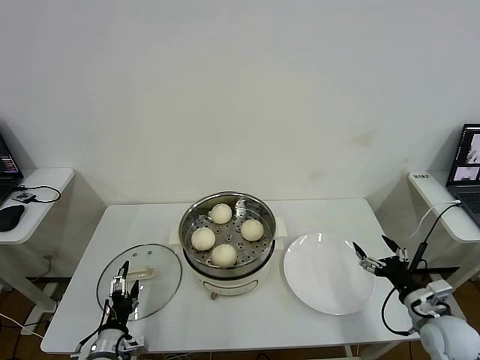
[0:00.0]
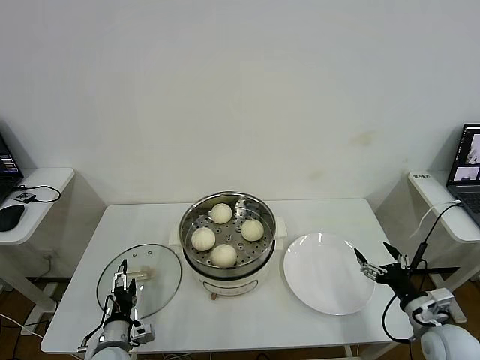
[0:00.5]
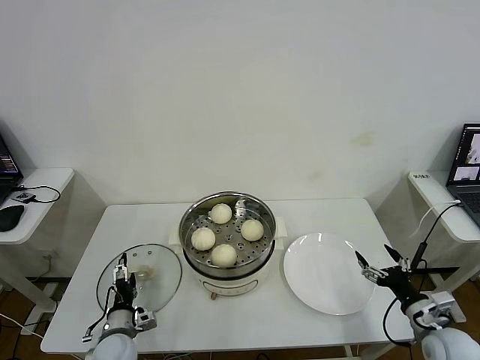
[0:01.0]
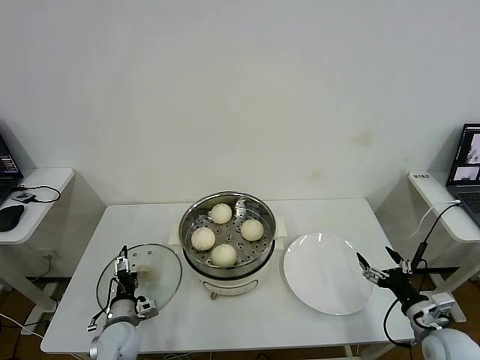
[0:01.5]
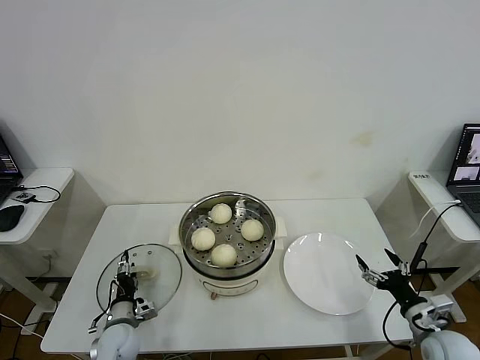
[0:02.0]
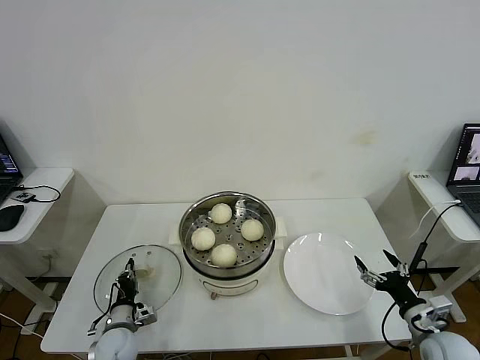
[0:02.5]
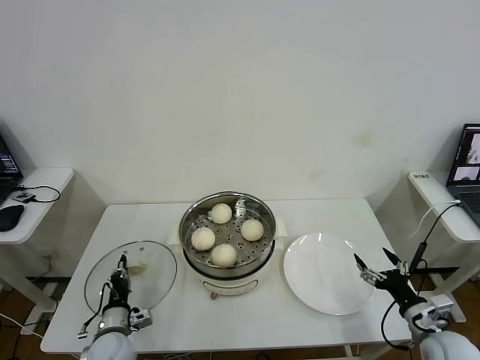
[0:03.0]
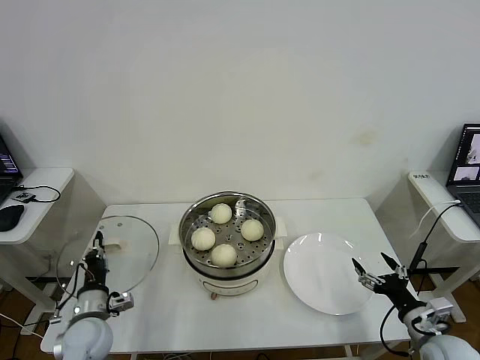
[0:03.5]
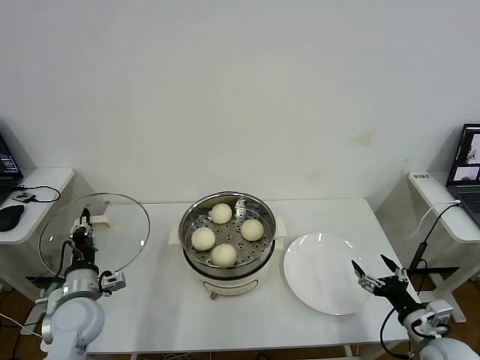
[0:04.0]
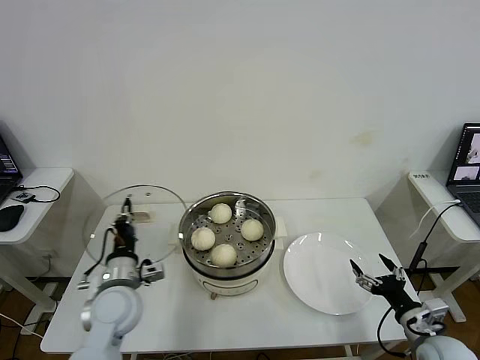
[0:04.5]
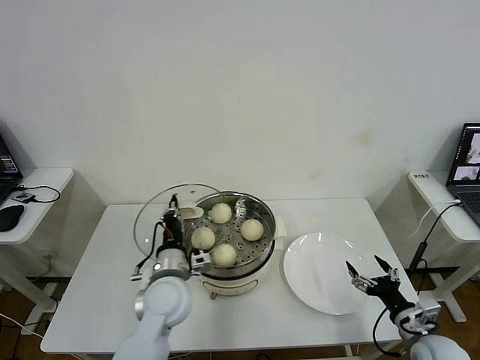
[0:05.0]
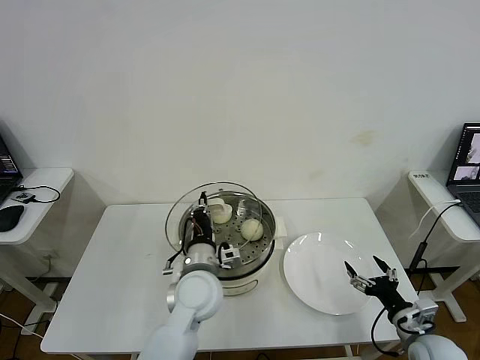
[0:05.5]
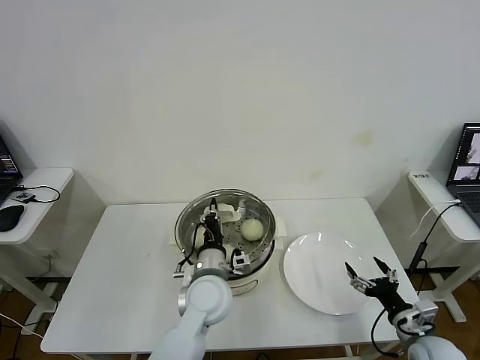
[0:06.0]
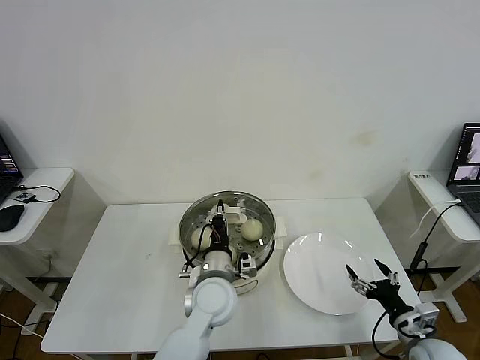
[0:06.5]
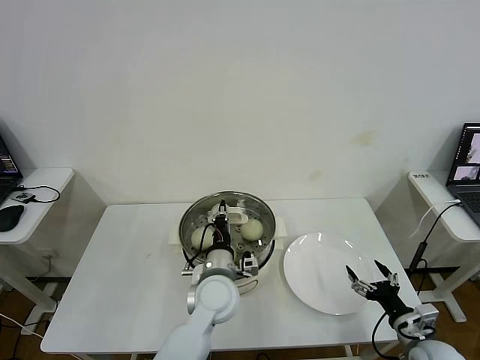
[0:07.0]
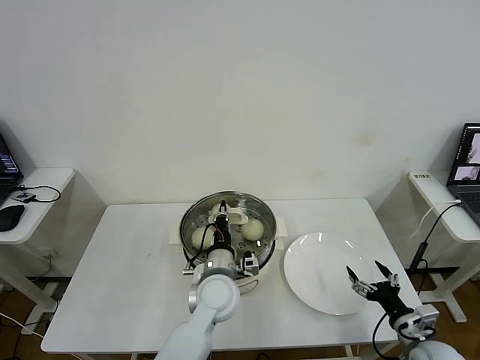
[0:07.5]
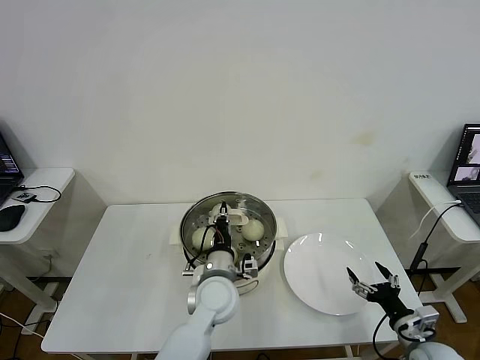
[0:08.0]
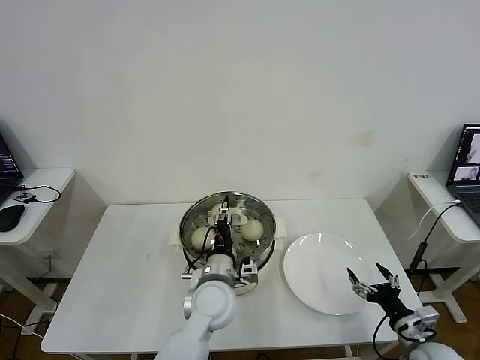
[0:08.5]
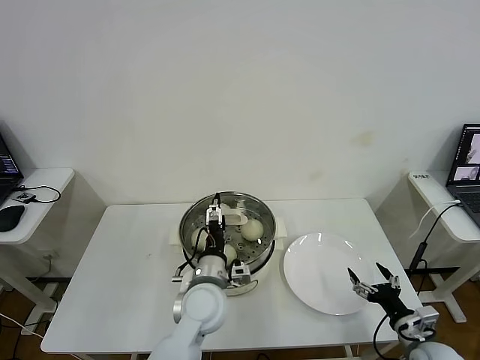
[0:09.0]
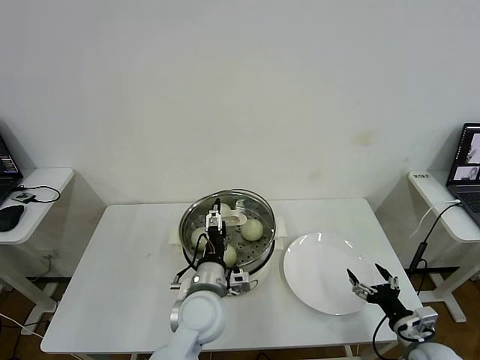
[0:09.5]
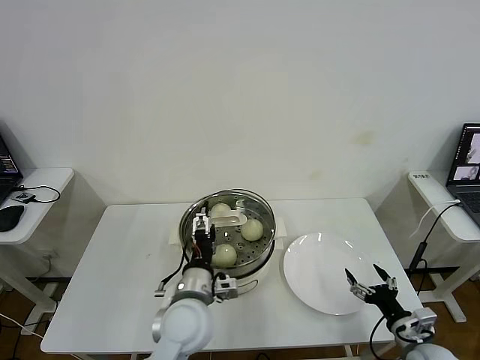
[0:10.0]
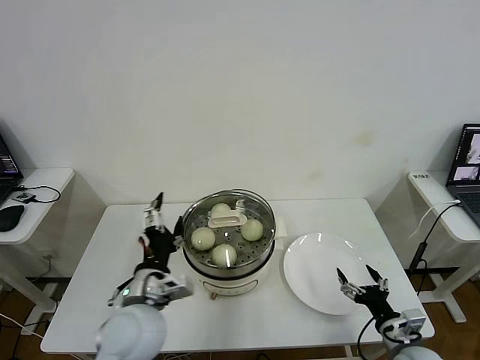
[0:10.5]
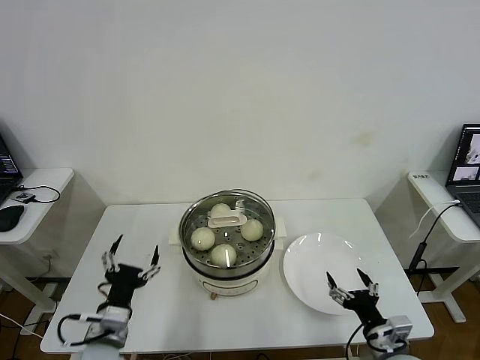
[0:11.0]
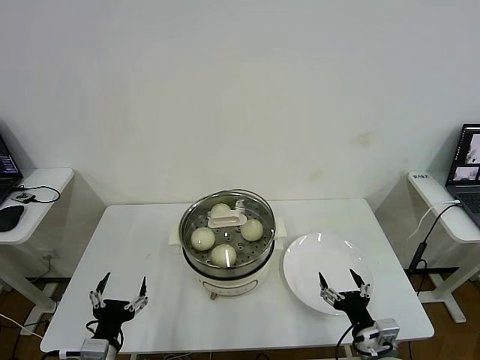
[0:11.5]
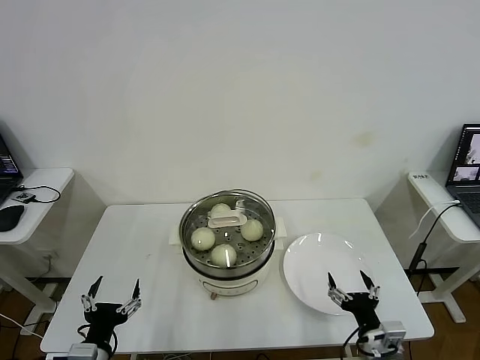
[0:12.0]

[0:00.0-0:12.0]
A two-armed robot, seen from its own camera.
Step, 0:00.0 to 0:02.5: Grasp the pot lid with left gripper.
Step, 0:03.0 to 0:08.5: Place the pot lid on the steamer with left gripper.
0:00.0 to 0:02.0: The left gripper shifts approximately 10 cm forward.
0:02.0 to 0:04.0: The left gripper is displaced upward by approximately 15 cm, and closes its fingers.
0:04.0 to 0:06.0: The left gripper goes roughly 25 cm to the right.
0:06.0 to 0:08.0: The grippers stay close to where they were, moving slightly.
0:08.0 to 0:10.0: The left gripper is displaced backward by roughly 5 cm, and opens up.
0:10.0 to 0:12.0: The left gripper travels to the left and backward by about 25 cm. The right gripper travels to the left by some 10 cm.

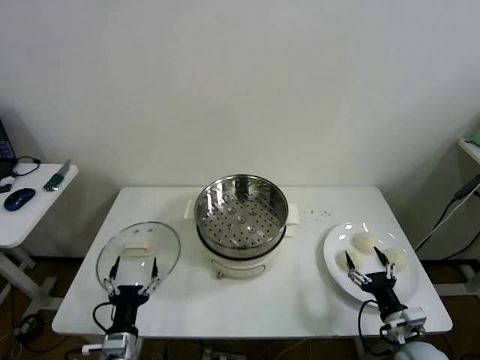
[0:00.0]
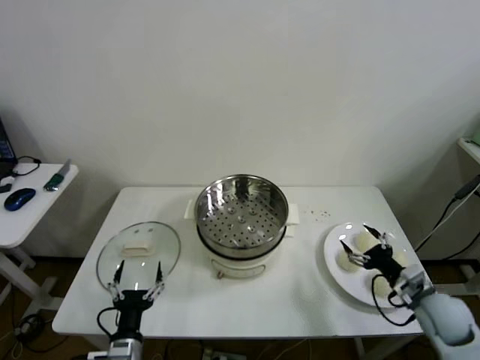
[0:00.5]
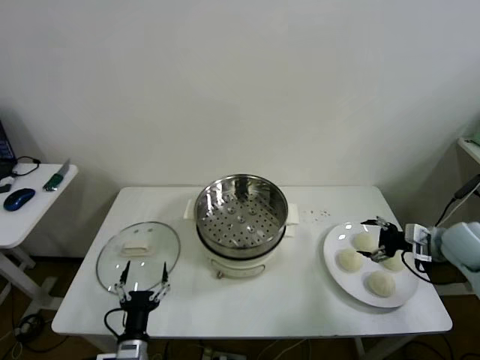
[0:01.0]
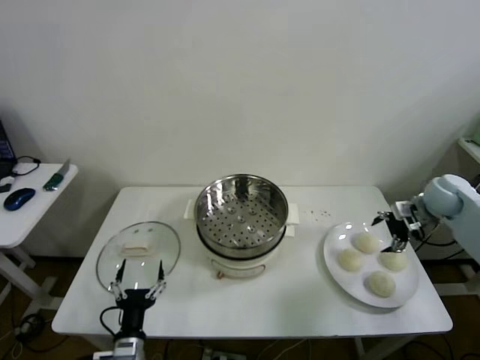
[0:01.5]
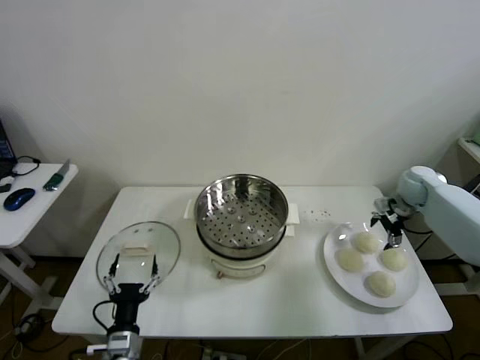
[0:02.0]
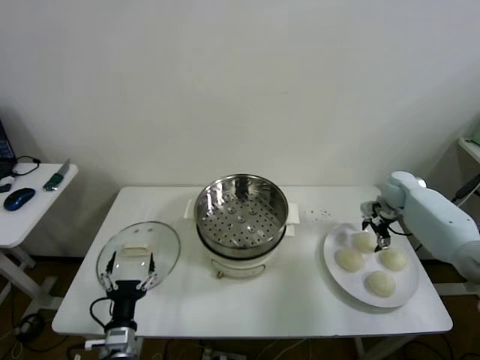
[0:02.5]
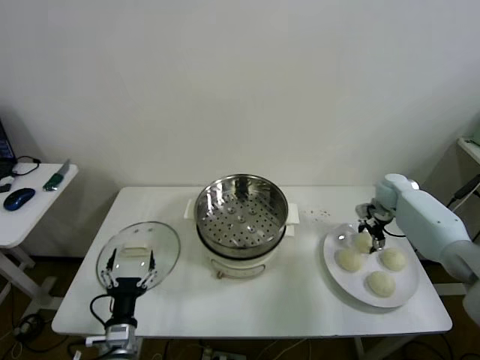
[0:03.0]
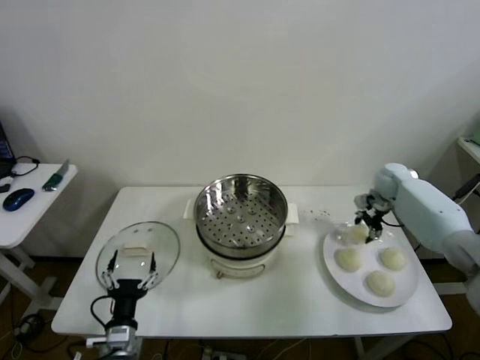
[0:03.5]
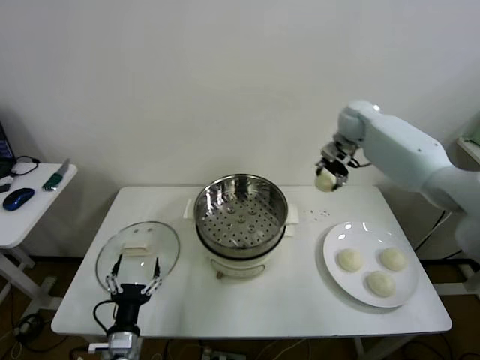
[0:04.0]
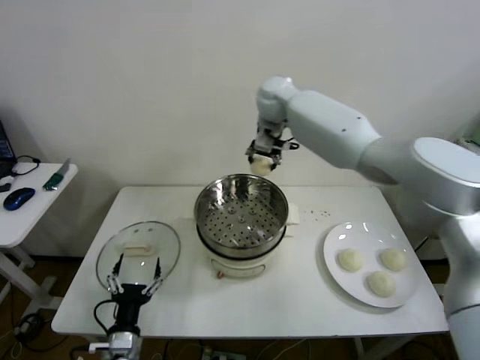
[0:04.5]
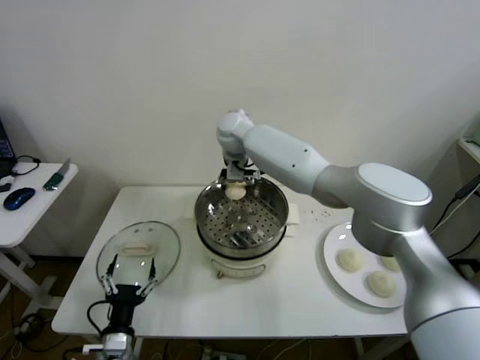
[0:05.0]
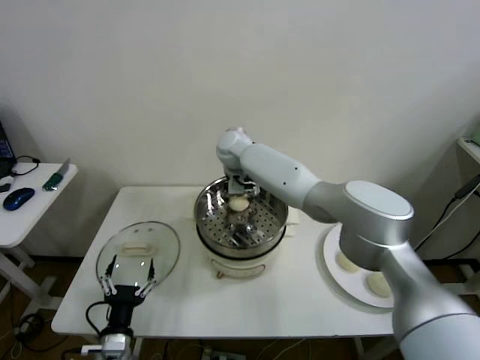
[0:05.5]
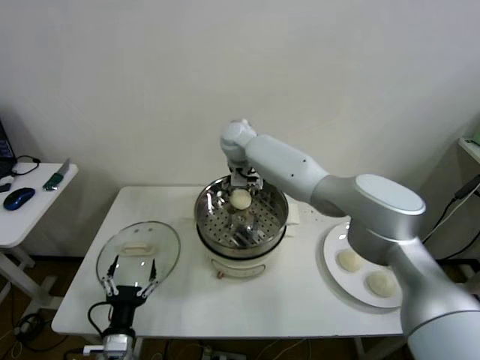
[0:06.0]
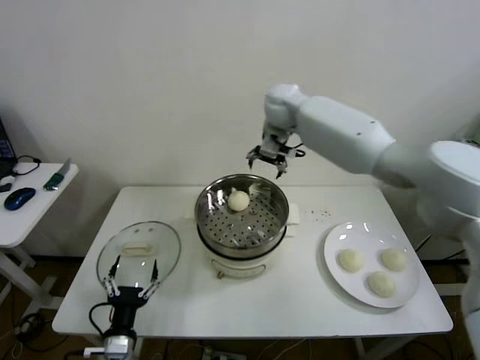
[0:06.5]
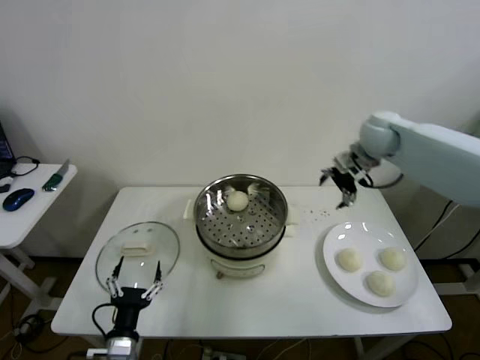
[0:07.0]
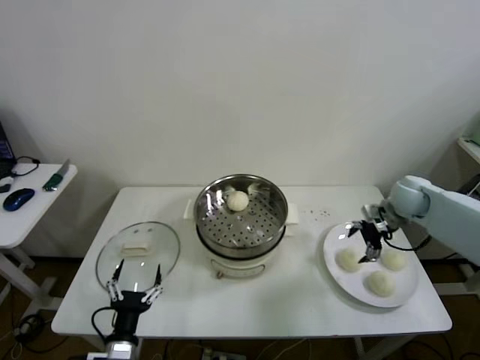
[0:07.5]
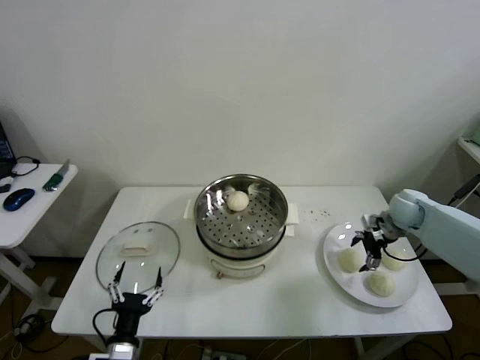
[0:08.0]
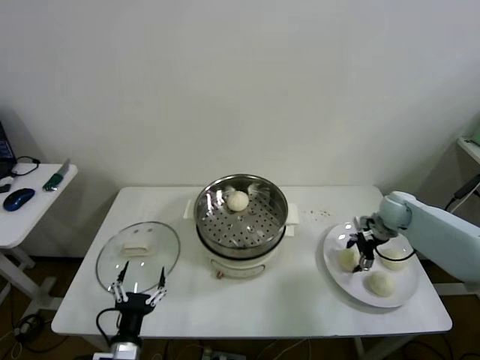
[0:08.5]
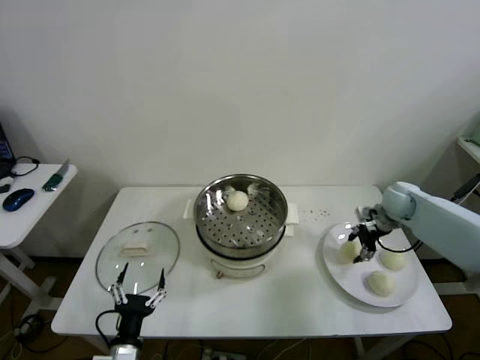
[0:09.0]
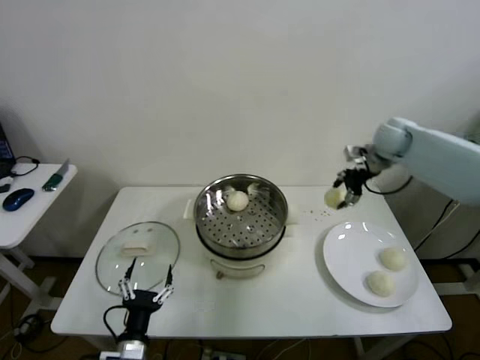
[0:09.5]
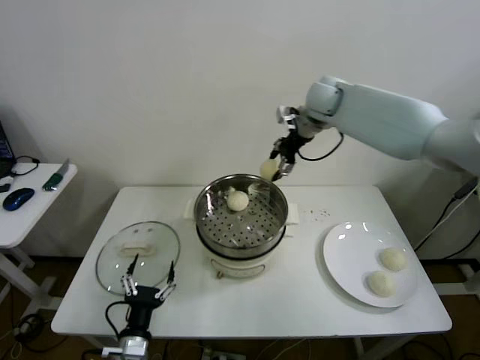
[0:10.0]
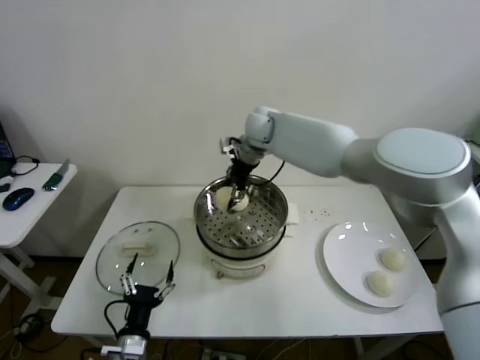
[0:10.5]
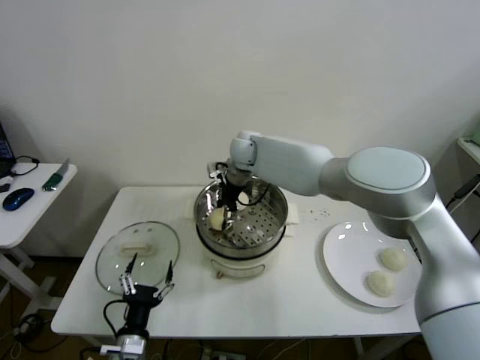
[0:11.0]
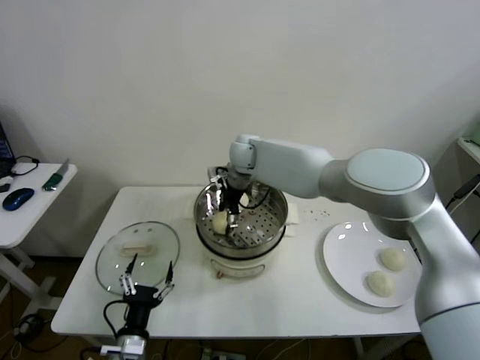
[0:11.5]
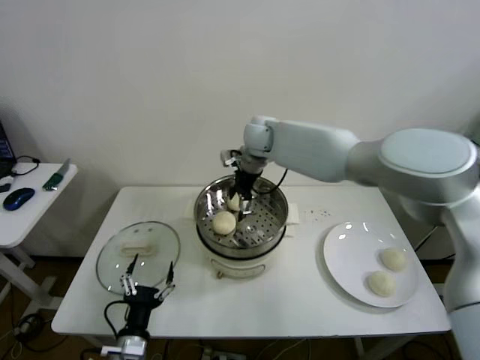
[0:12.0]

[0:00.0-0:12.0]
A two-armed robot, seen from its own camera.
Step, 0:00.0 to 0:02.5: Grasp the baozi in the plate with right gripper.
Step, 0:03.0 to 0:05.5: Place the baozi on the steamer with right gripper.
Step, 0:06.0 to 0:08.5: Grasp the baozi in the plate with right gripper.
Step, 0:09.0 to 0:11.5: Place the baozi on the steamer with right gripper.
0:02.0 to 0:04.0: The right gripper travels to the left, upward and forward by approximately 25 cm, and closes up.
0:04.0 to 0:06.0: The right gripper travels to the left by approximately 30 cm, and opens its fingers.
0:06.0 to 0:08.0: The right gripper shifts some 40 cm to the right.
0:08.0 to 0:10.0: The right gripper goes about 35 cm upward, to the left and forward, and closes its fingers.
0:10.0 to 0:12.0: The right gripper heads to the left and downward, covering approximately 15 cm, and opens up.

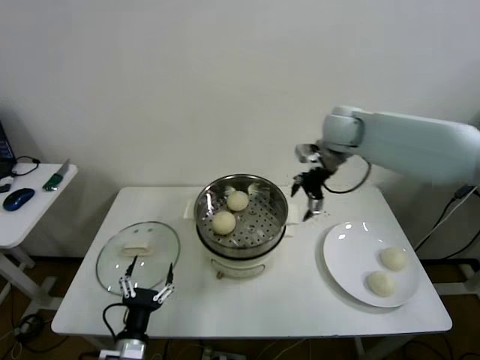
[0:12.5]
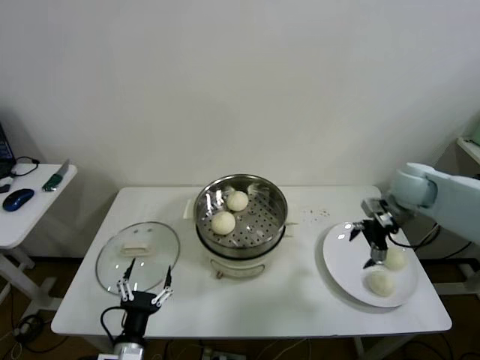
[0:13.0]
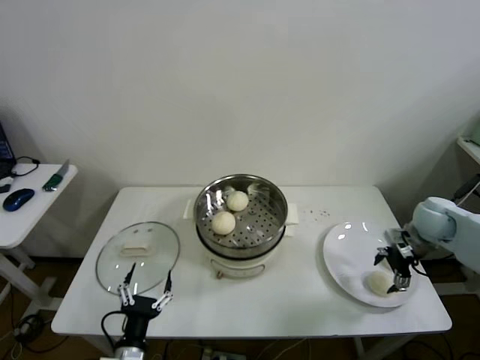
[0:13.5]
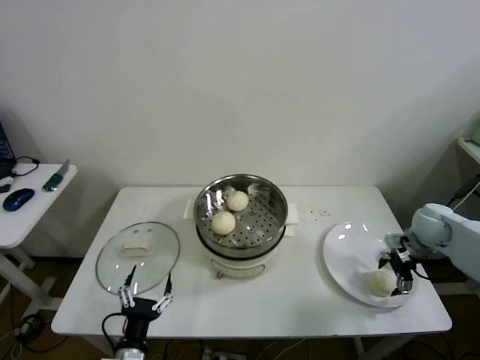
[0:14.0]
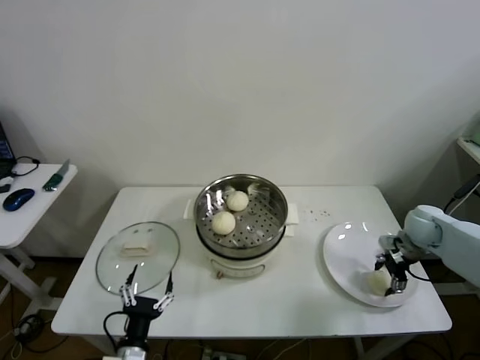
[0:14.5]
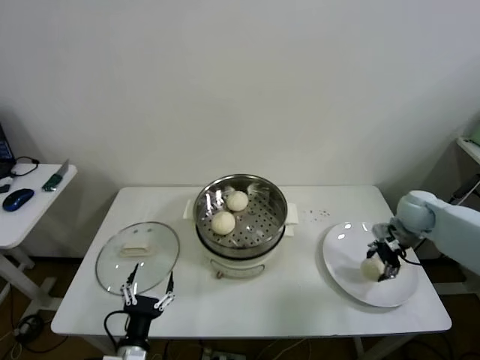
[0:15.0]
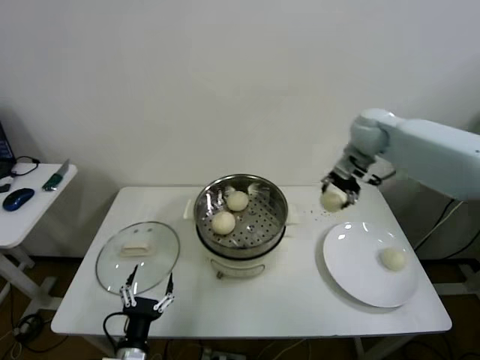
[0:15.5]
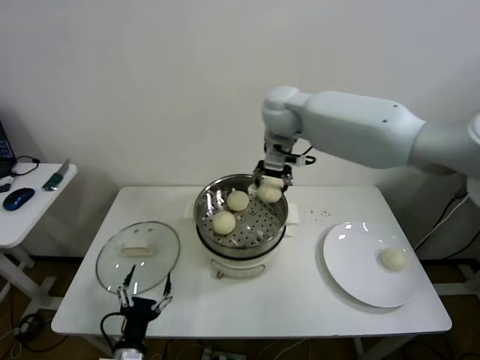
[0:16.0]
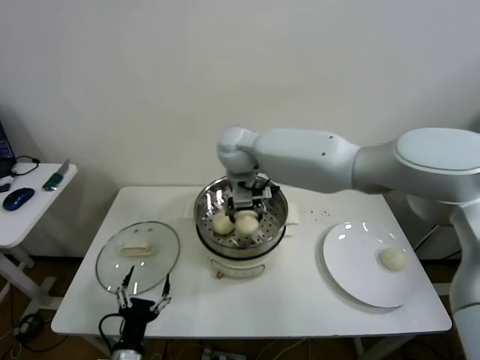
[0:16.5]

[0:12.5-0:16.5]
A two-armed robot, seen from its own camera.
Step, 0:12.5 to 0:14.0: Grasp the baozi in the plate with right gripper.
0:12.5 to 0:14.5: The right gripper is displaced to the right, downward and backward by some 35 cm, and closes.
0:14.5 to 0:16.5: The right gripper travels to the left and upward by roughly 50 cm.
